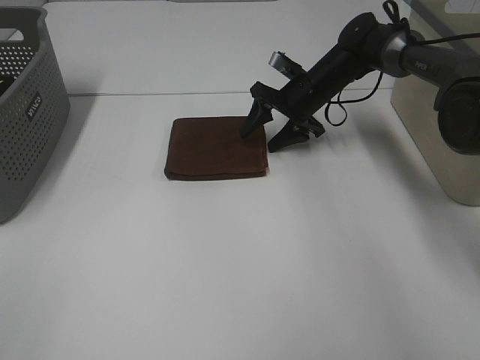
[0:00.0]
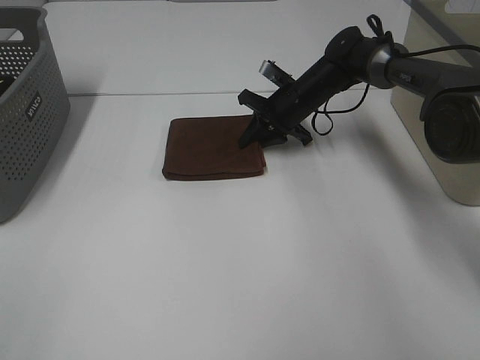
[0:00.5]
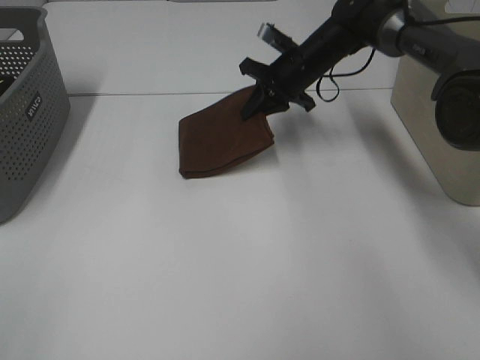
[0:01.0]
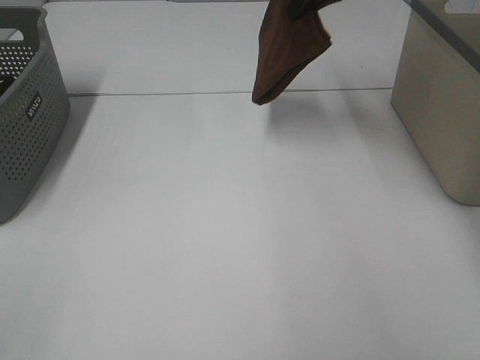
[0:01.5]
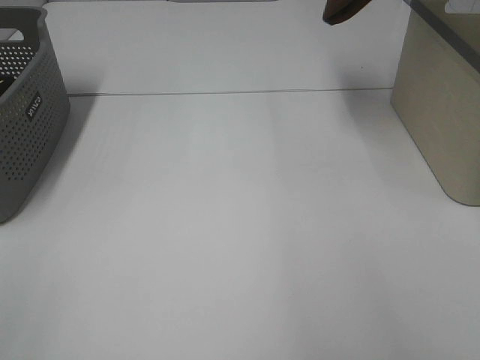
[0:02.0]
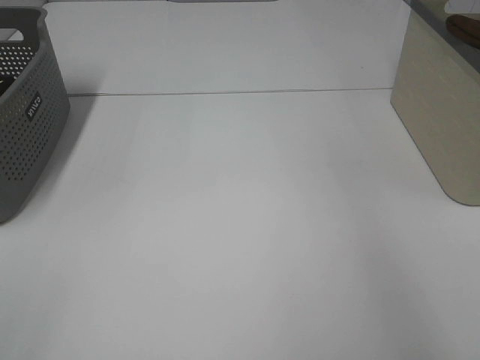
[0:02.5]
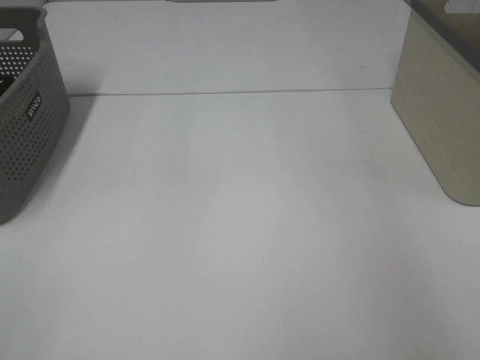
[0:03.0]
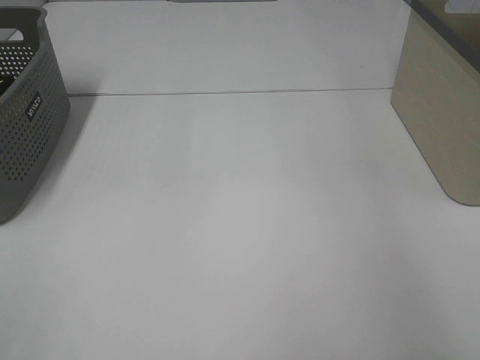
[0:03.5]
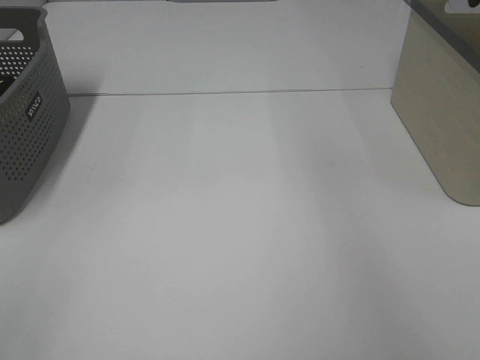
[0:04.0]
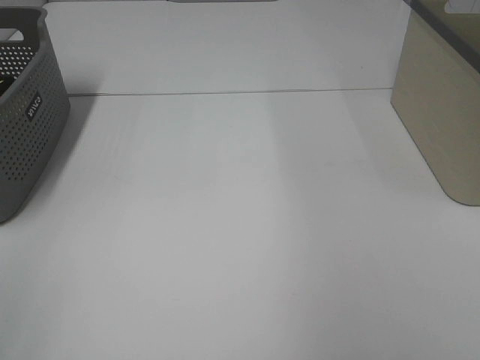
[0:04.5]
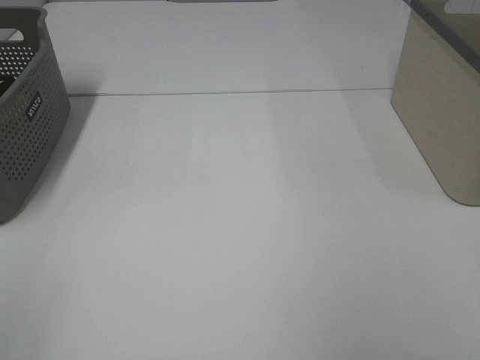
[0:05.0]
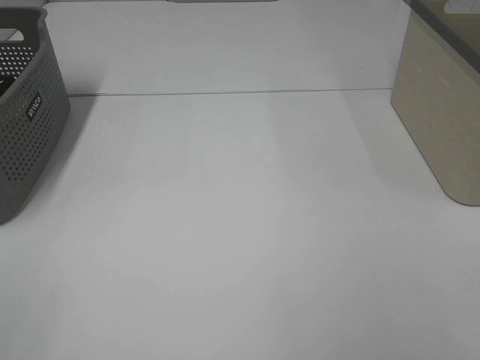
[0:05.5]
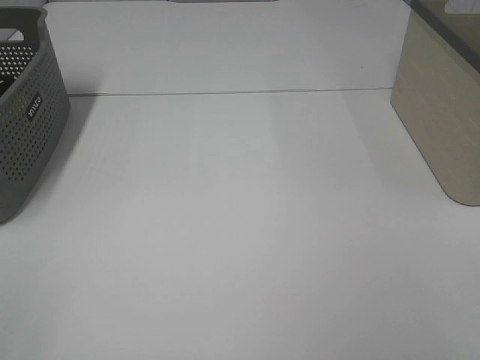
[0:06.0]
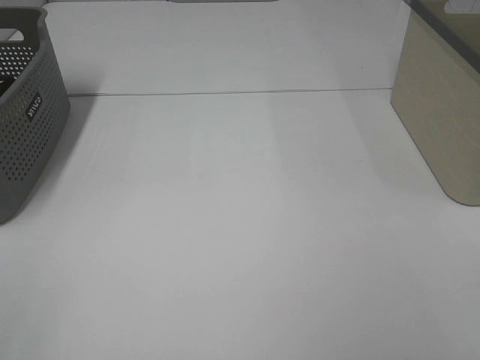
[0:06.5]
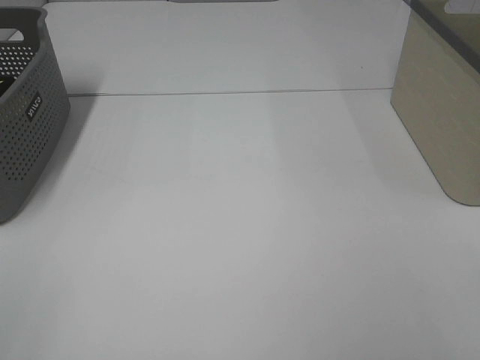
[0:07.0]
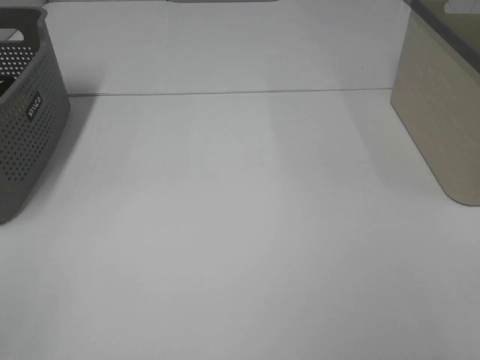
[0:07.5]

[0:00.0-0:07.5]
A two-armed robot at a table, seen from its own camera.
Step, 0:01.0 to 0:03.5: Right hand: place the brown towel in right basket.
0:00.0 to 0:02.0: The right gripper moves upward, about 35 cm, and closes its fingers.
0:02.0 to 0:04.0: The right gripper is displaced to the right and downward by some 10 cm, and opens up.
